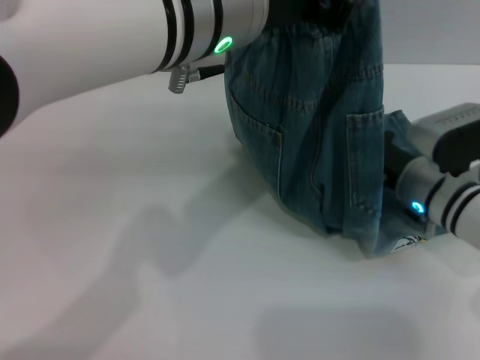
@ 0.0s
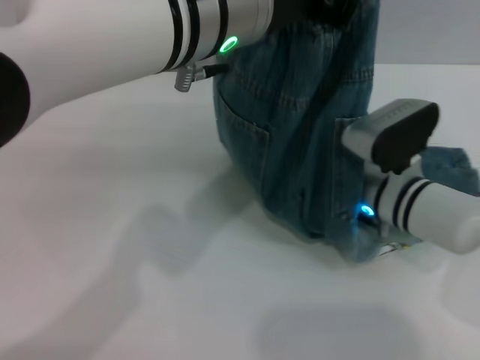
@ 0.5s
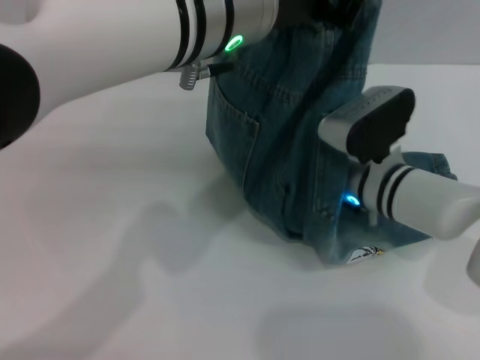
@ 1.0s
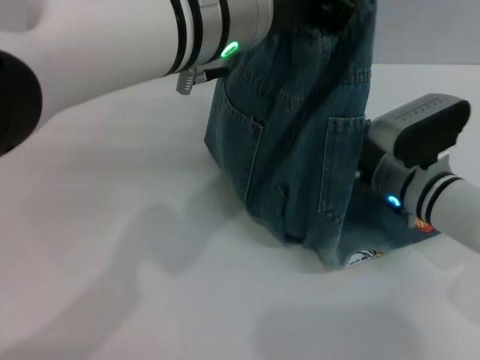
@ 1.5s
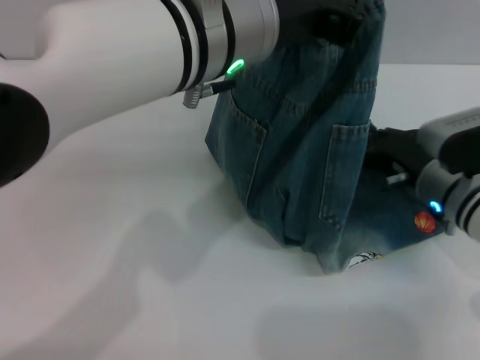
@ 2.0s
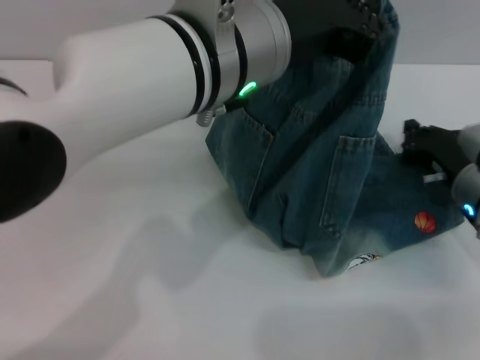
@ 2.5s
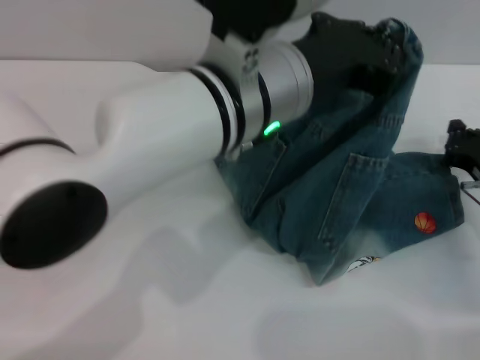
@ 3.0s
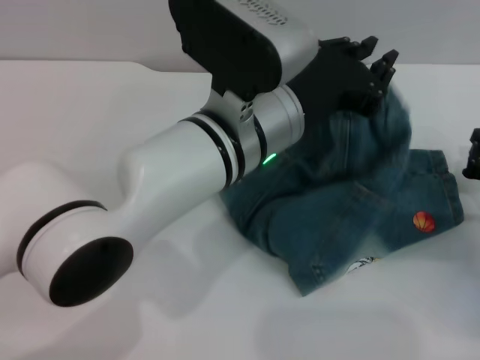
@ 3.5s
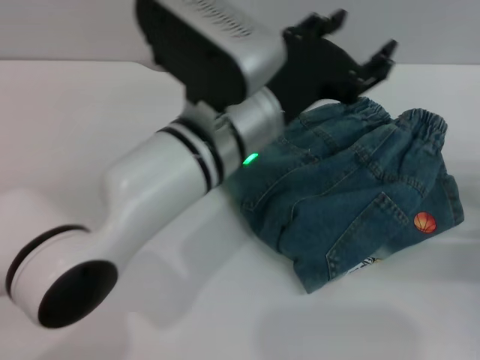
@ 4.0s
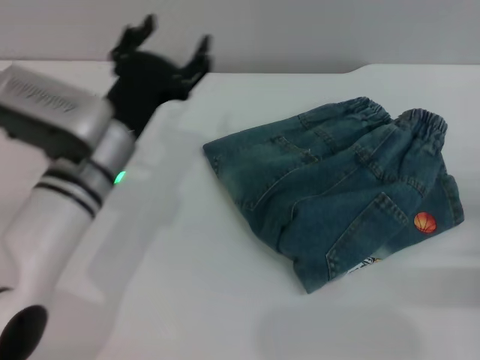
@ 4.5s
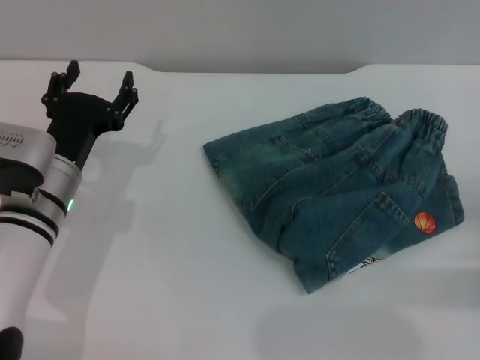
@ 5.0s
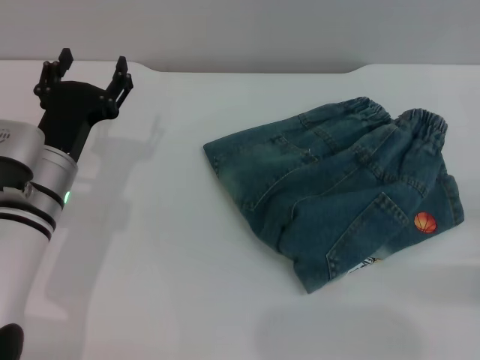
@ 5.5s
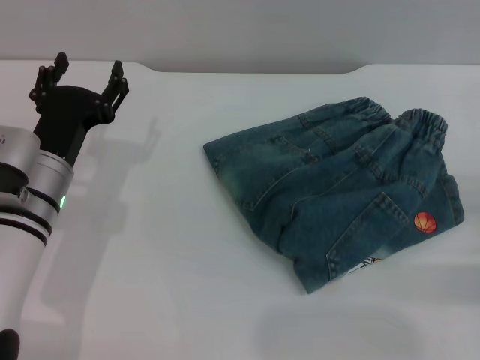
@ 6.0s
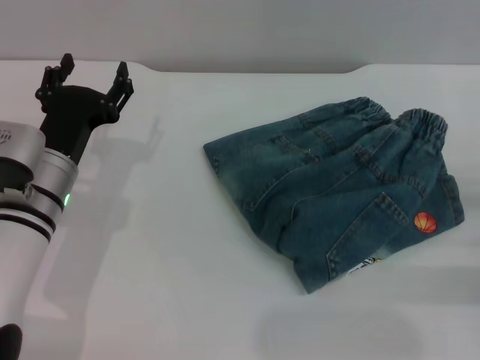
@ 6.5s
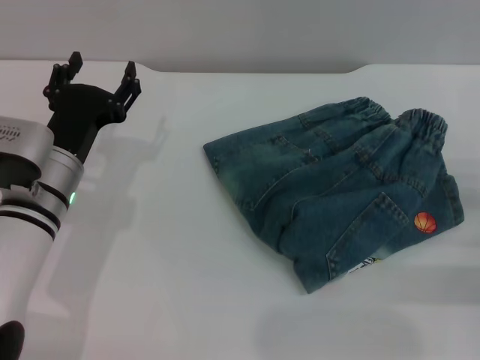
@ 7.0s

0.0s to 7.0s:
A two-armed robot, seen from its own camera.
Step, 0.0s to 3.5s: Fold the pants from left to right with the left gripper.
0.0s to 2.0s: The right gripper reaches some 5 cm to the left, then returns.
2.0s to 3.5s: The left gripper travels downward by about 10 cm. The right gripper is displaced to the right and backward by roughly 10 cm.
3.5s to 5.0s: The left gripper moves to the left and downward, approximately 20 cm, and opens up. Meanwhile the right gripper heads backward and to the right, covering approximately 10 cm.
5.0s to 7.0s: The grippers make only small movements.

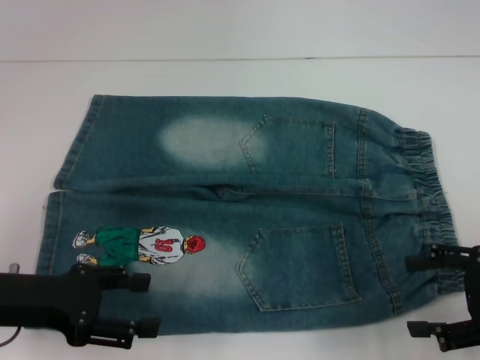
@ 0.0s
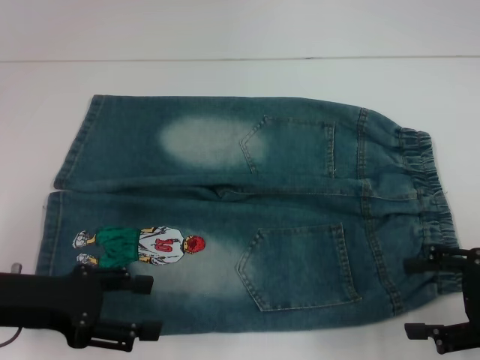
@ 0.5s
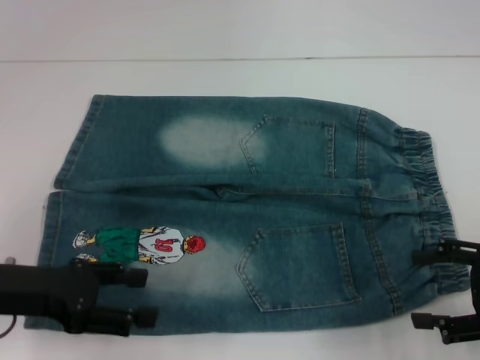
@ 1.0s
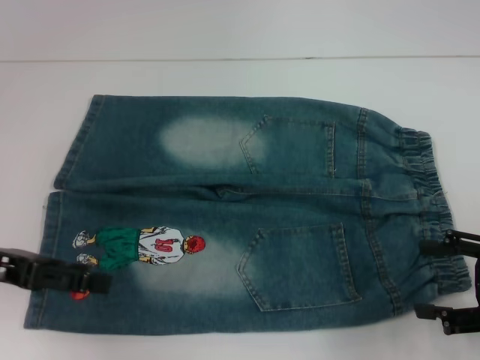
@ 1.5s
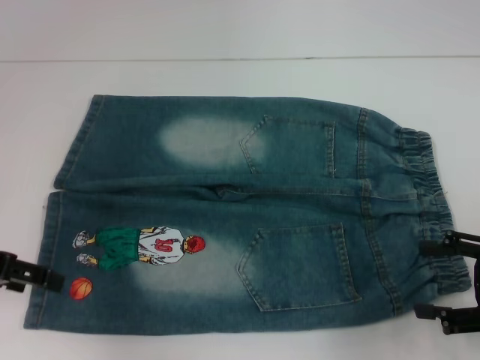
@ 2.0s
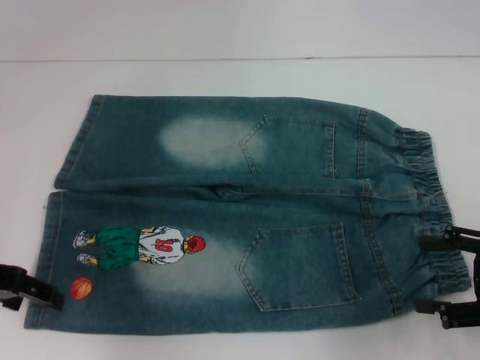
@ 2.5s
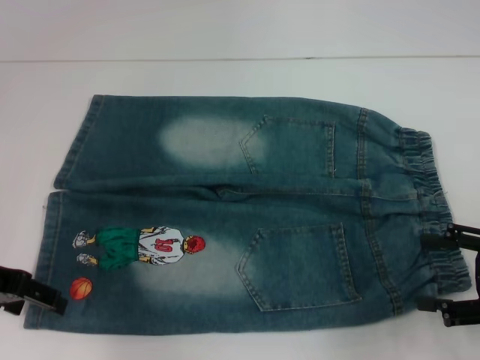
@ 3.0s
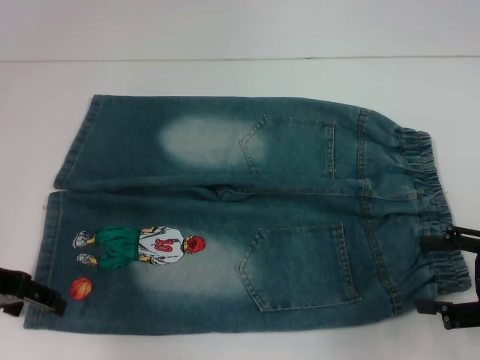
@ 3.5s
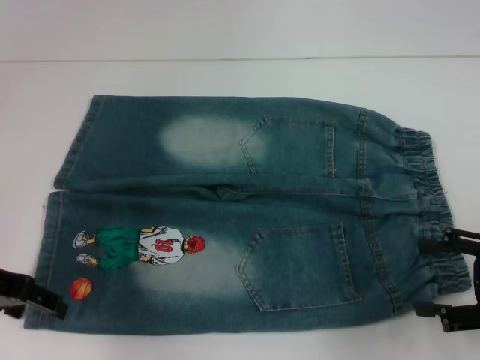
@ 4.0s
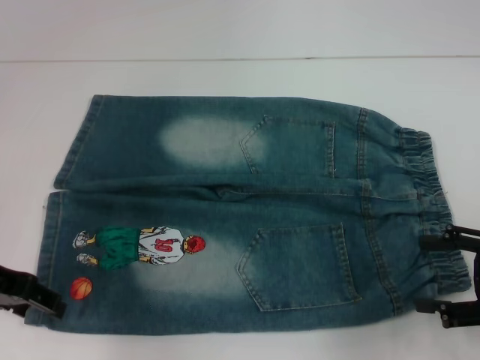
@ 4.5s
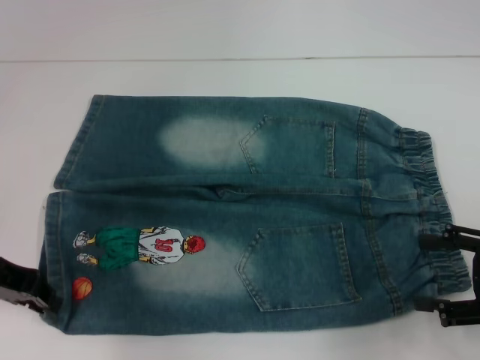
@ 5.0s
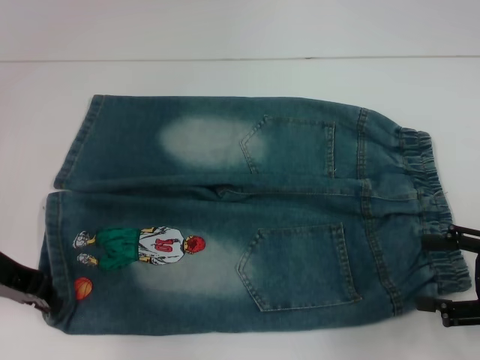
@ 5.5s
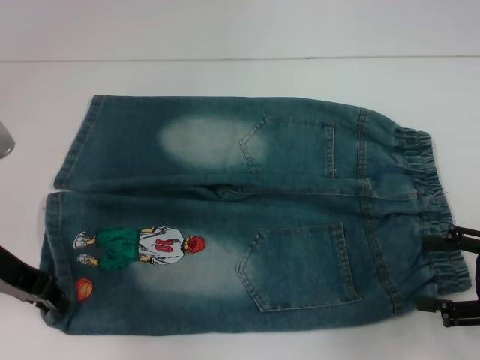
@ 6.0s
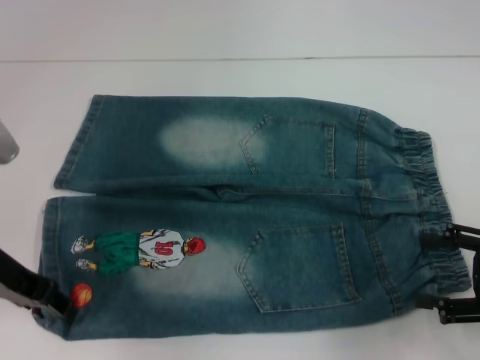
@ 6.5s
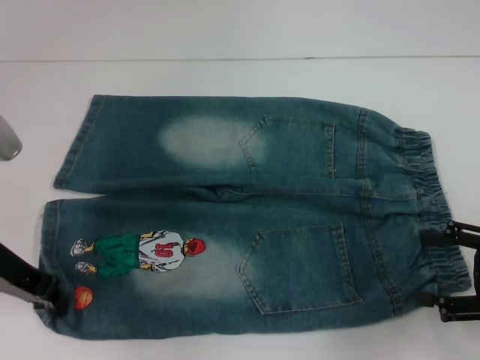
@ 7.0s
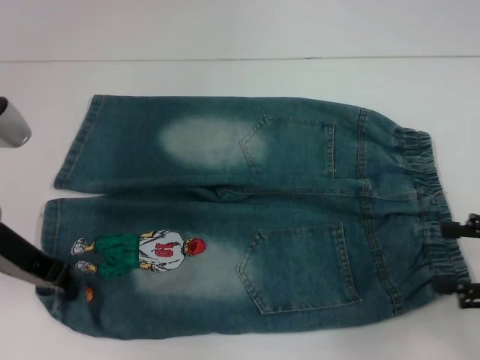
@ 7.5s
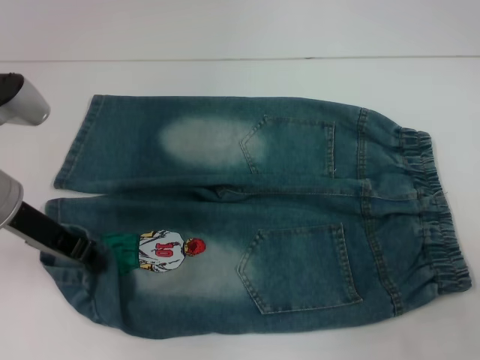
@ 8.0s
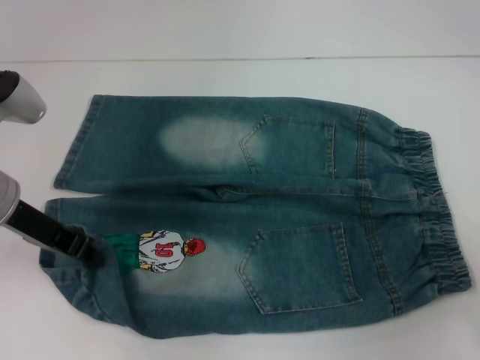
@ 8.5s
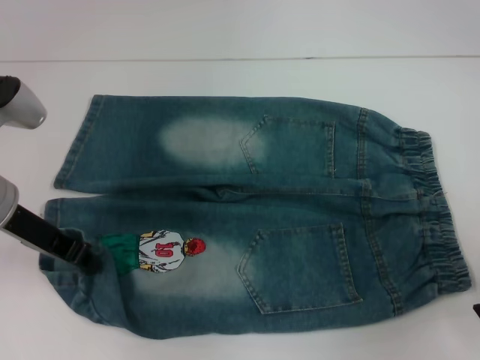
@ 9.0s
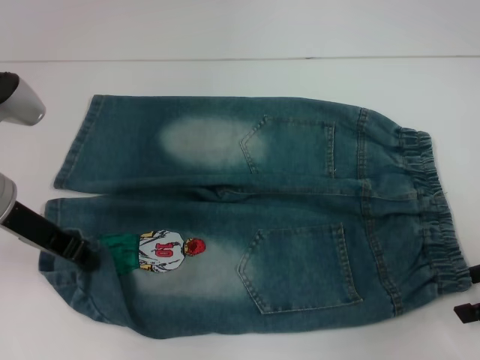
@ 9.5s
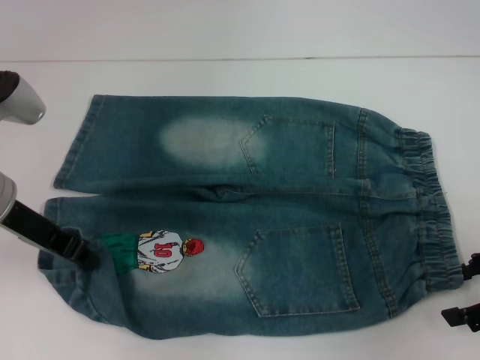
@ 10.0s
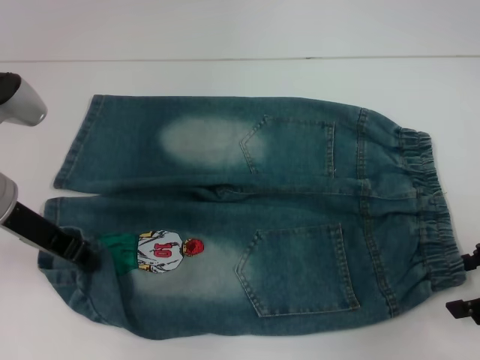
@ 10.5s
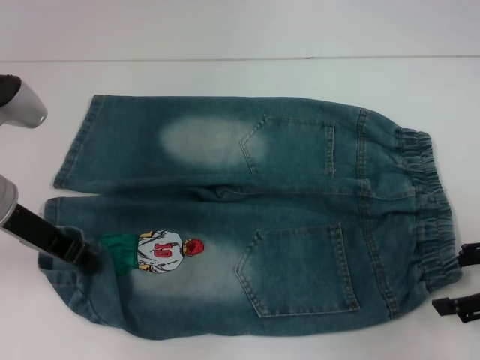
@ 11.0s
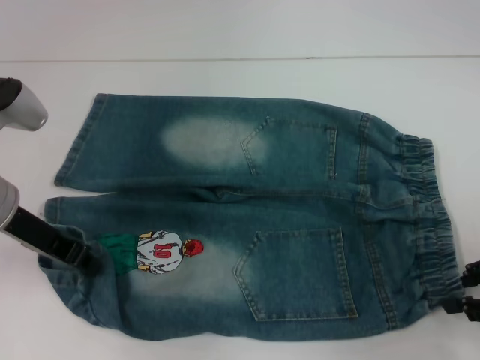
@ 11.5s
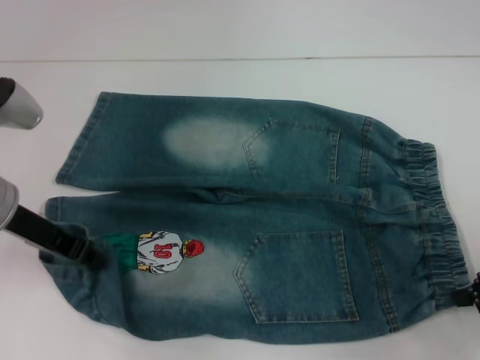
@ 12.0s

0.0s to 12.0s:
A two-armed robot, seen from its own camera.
Step, 0.0s to 7.0s: Grab the lower left pant leg with your left hand.
Step, 7.5s to 12.0s: Hold the lower right waistband with your right hand.
0.0s to 2.0s: The left gripper travels upward by some 5 cm.
2.0s to 4.0s: The grippers move only a little.
4.0s to 6.0s: The left gripper closes.
6.0s to 8.0s: The right gripper moves approximately 5 cm.
8.0s to 10.0s: The right gripper shifts by some 5 cm.
10.0s to 12.0s: The right gripper closes up.

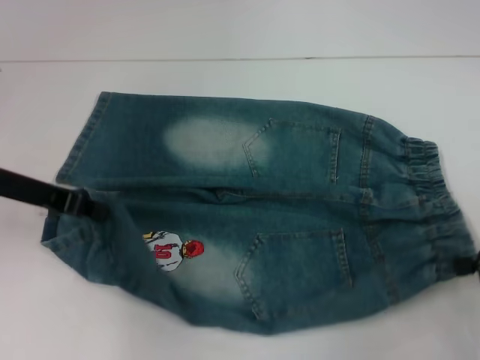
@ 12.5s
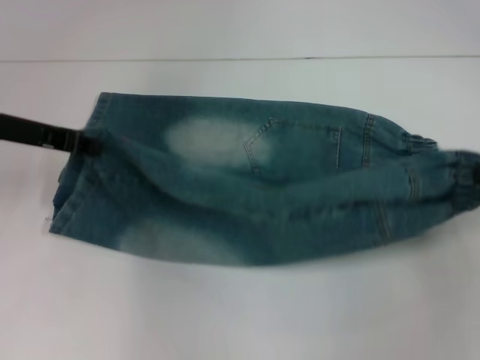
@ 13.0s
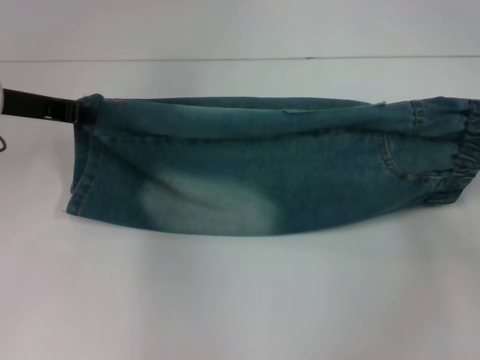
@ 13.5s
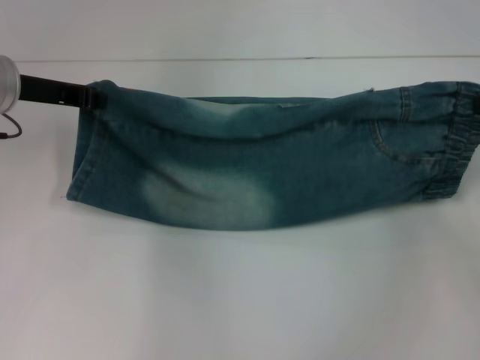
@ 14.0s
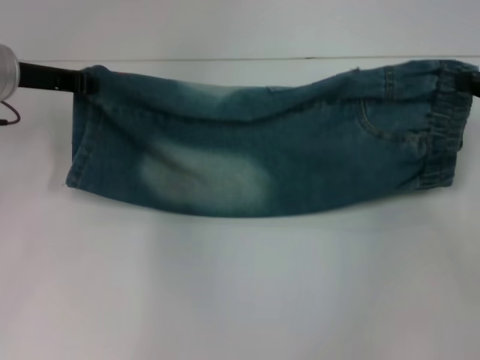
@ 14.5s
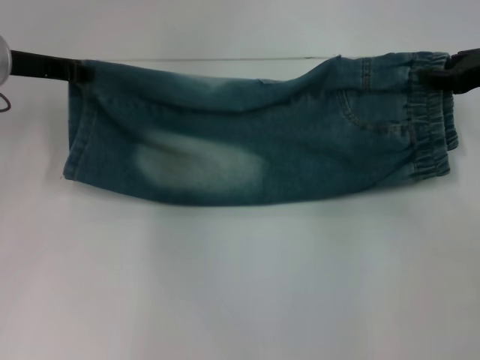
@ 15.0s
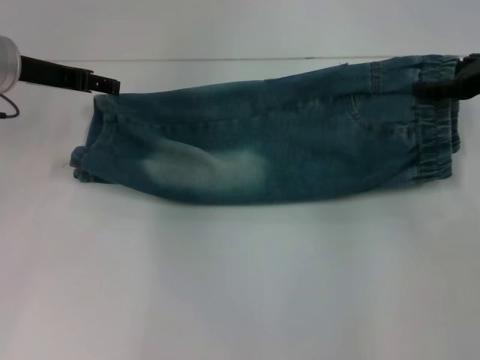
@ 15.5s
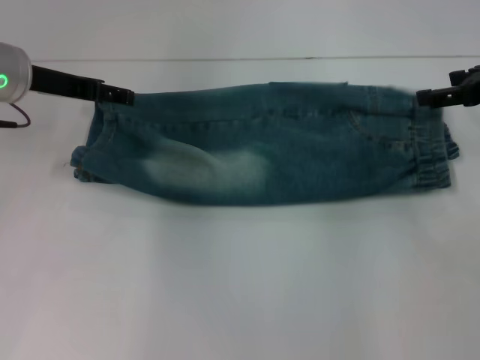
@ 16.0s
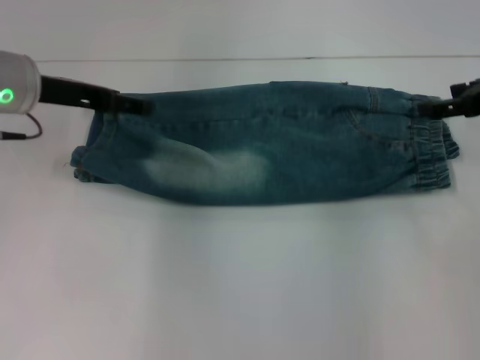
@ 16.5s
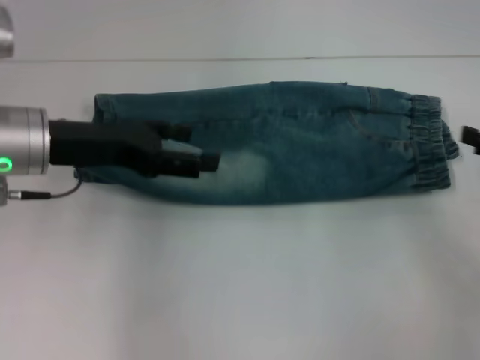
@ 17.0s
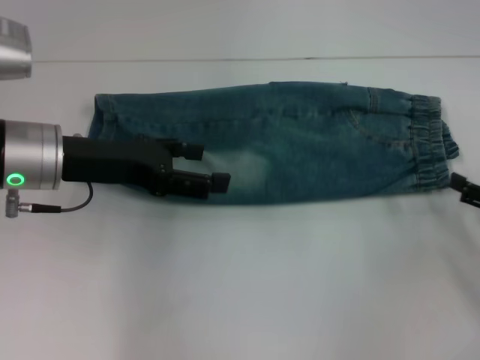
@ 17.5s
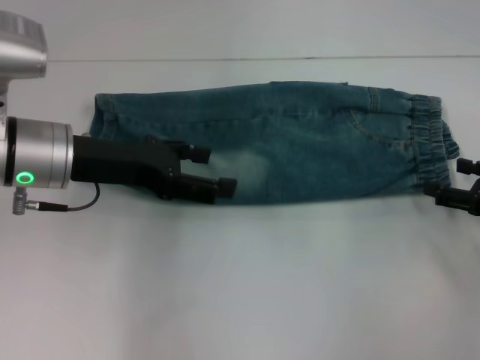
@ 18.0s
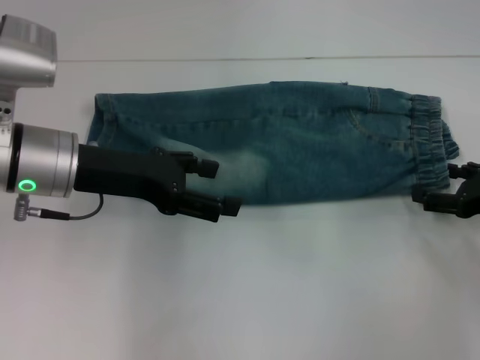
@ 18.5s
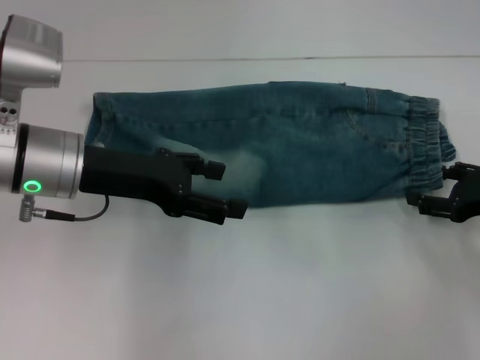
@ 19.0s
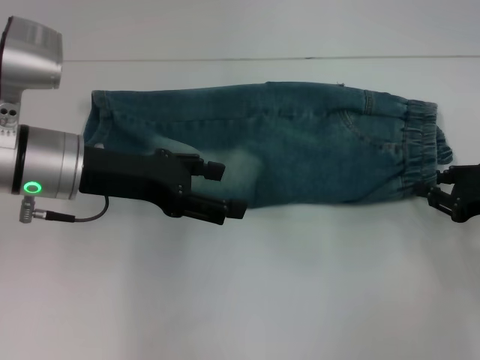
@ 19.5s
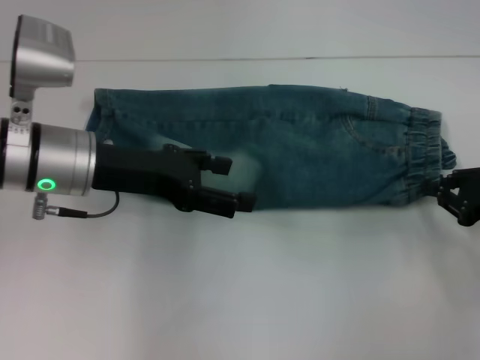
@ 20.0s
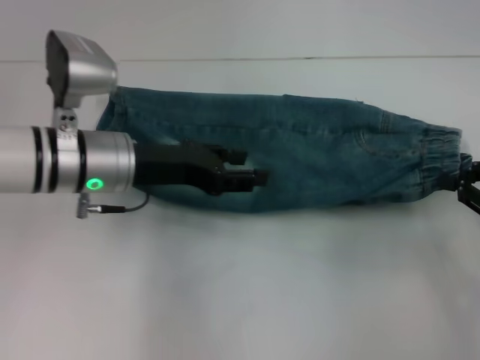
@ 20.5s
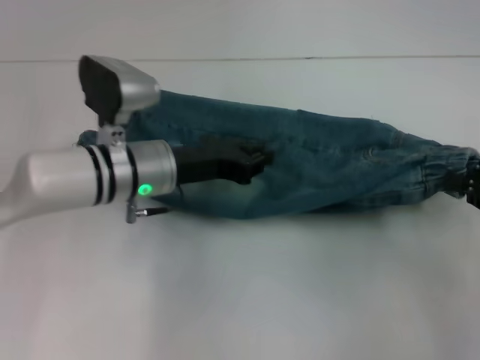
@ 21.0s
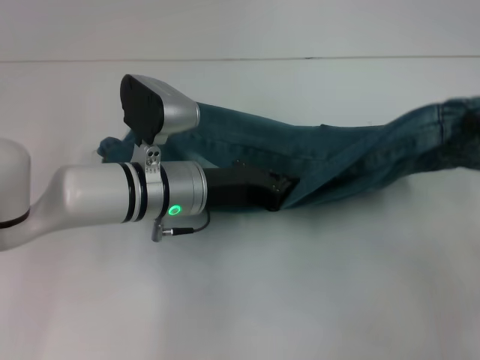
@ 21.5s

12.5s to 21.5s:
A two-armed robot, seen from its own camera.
Step, 12.5s to 16.0s: Fold upward with your right hand.
Step, 17.0s to 20.0s: Grab the waistband with your right hand.
12.5s to 14.5s: The right gripper shifts some 15 cm forward and upward, while the left gripper goes approximately 10 cm forward.
14.5s to 17.0s: The grippers both shift backward by some 10 cm. The right gripper opens, while the left gripper opens its fingers.
17.0s to 19.5s: The right gripper goes roughly 5 cm downward, and closes.
19.5s to 21.5s: The right gripper travels upward by approximately 10 cm. The left gripper heads to the right and downward, covering roughly 15 cm, and closes its fingers.
